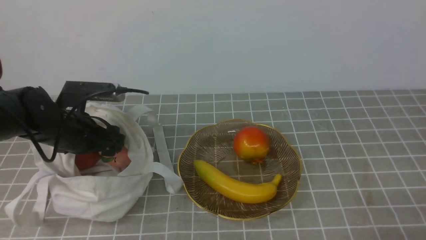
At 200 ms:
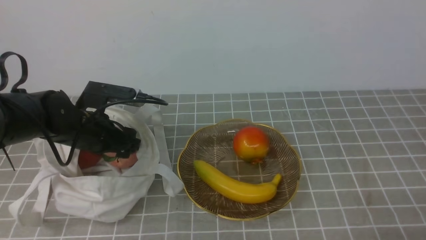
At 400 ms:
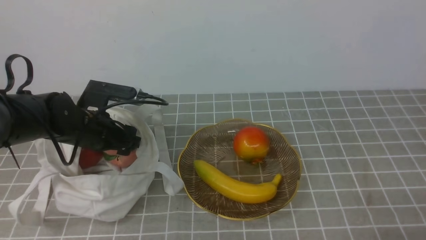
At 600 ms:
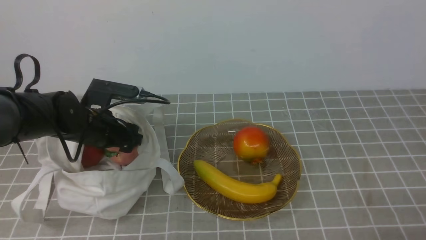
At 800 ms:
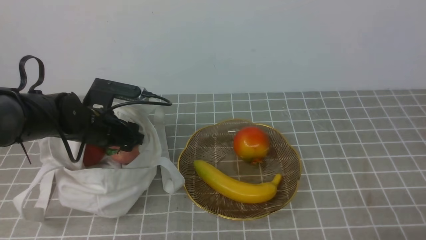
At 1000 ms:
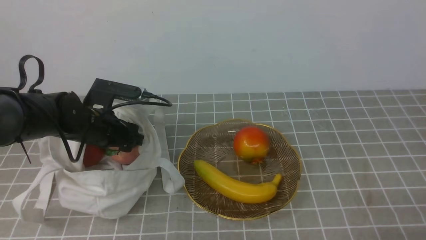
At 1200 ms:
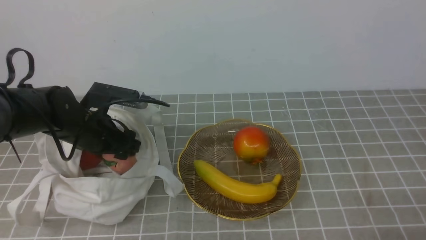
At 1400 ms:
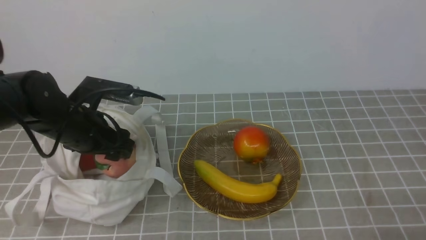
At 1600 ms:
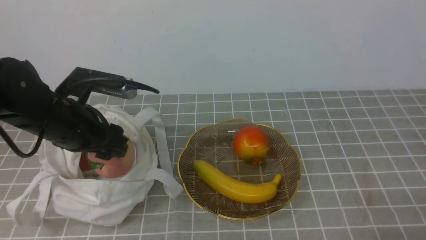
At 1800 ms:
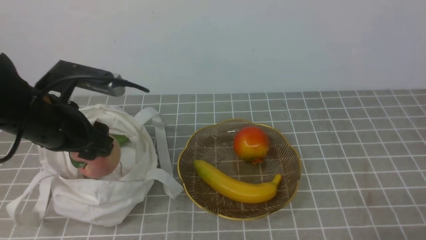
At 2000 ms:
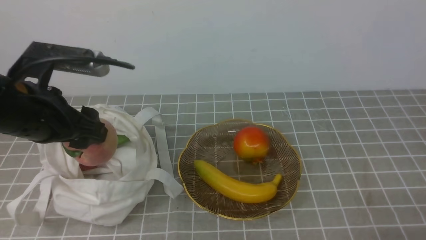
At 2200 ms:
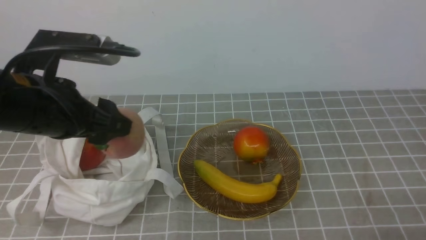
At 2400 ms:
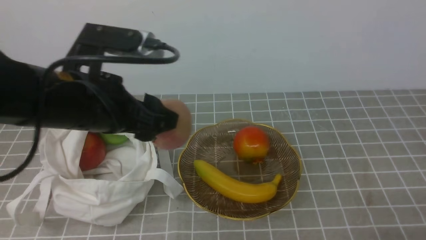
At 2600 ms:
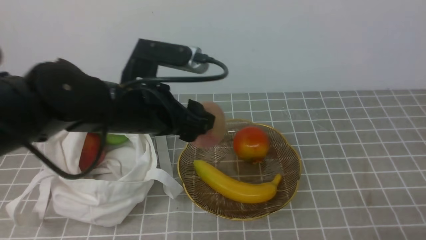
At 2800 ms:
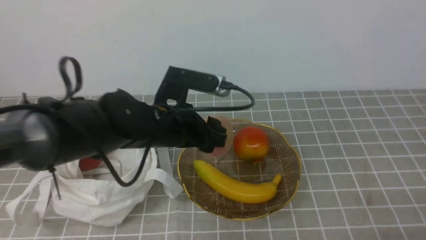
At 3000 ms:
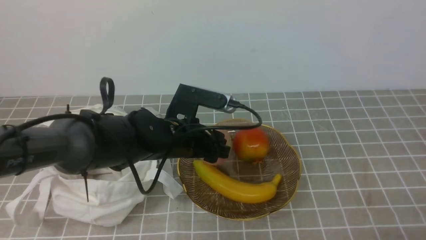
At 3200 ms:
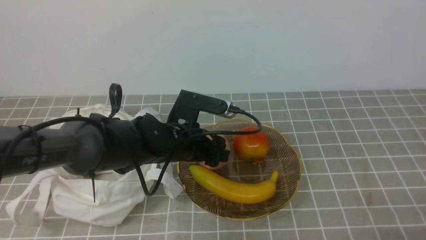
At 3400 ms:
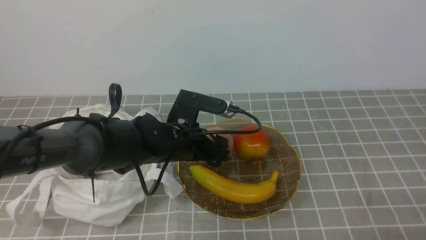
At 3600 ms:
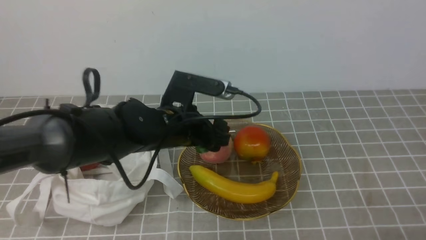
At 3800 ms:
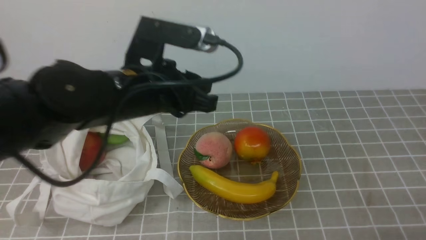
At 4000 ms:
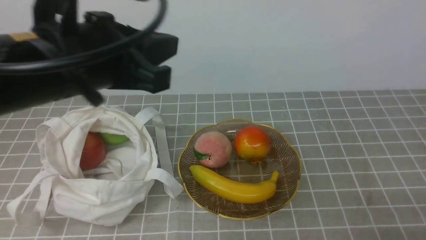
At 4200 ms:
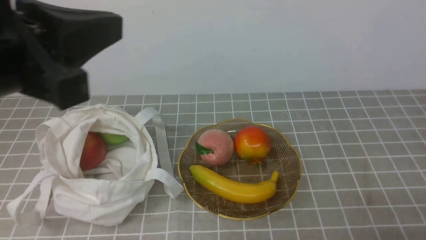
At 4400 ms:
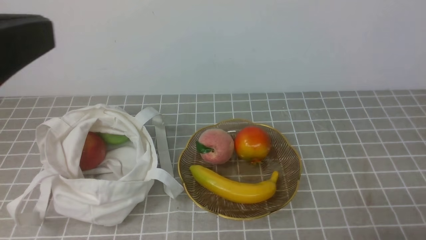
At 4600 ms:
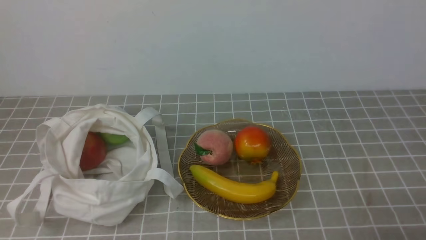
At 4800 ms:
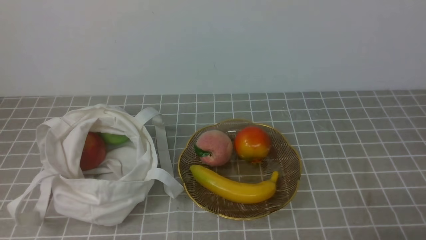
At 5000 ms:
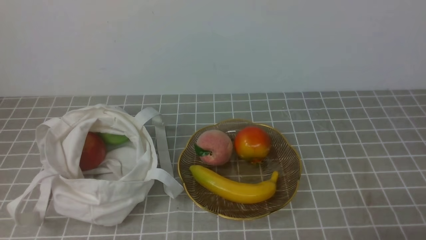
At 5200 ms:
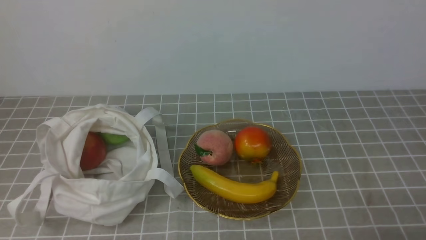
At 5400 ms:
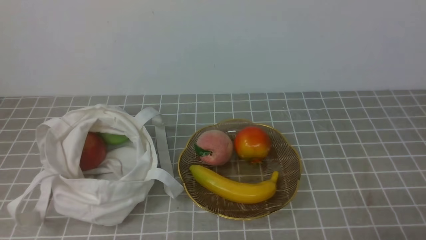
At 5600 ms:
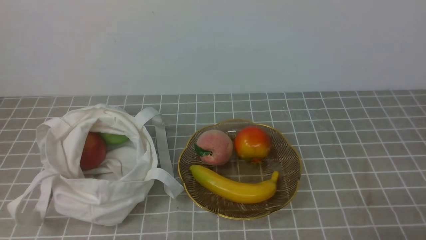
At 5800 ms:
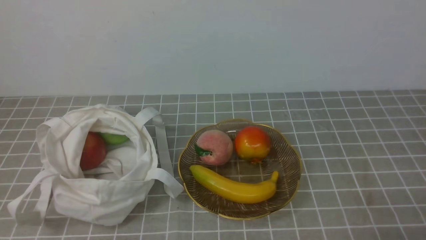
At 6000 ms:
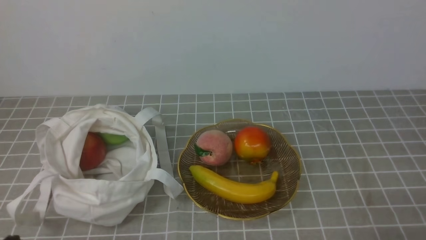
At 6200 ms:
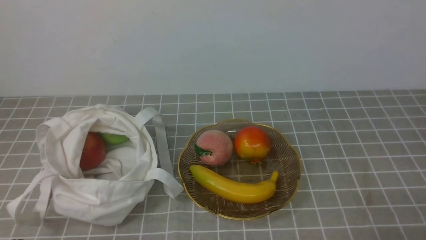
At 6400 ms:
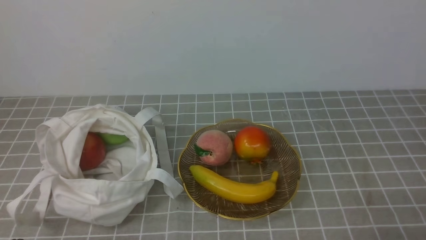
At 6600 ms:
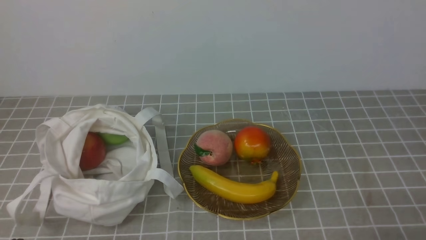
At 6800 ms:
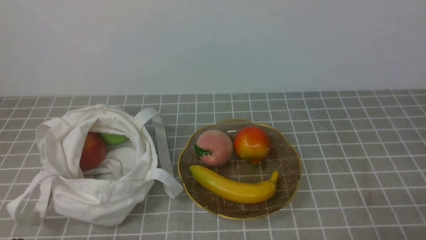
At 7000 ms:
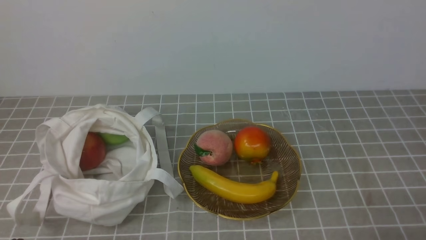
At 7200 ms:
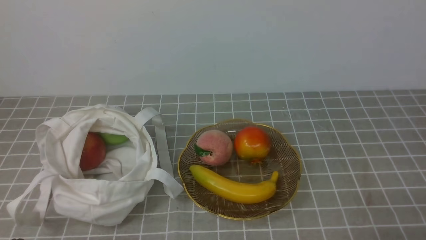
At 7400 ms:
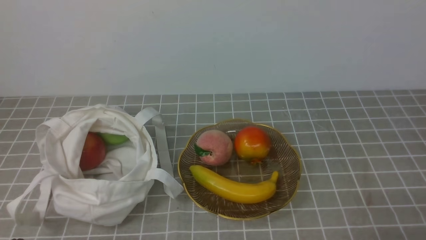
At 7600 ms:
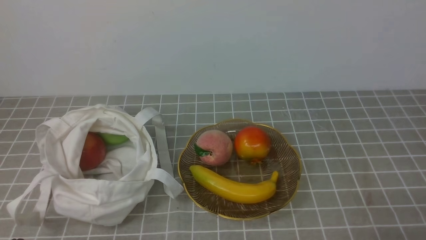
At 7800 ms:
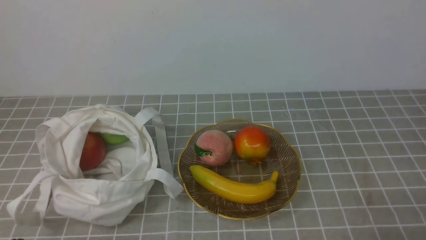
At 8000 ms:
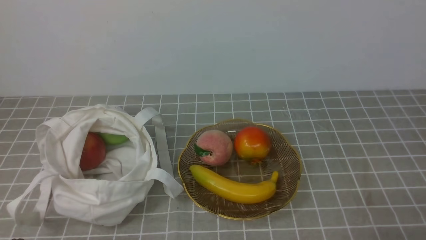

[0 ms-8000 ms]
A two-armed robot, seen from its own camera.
Step, 1400 ms to 3200 ms: use the left arm to put the peach into the empty plate on the right.
0 ms to 1600 ms: The left gripper goes roughly 5 cm upward.
1600 ms to 3200 ms: The left gripper moves to the right and downward, about 15 cm.
3200 ms to 4800 ms: The left gripper travels backward, upward and to the left by approximately 40 cm, and closes its fingers.
6400 ms to 8000 ms: The two grippers keep their place.
